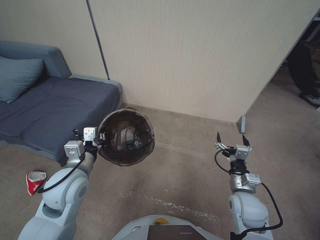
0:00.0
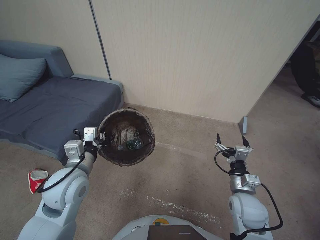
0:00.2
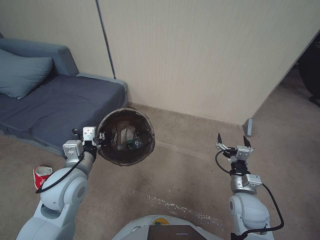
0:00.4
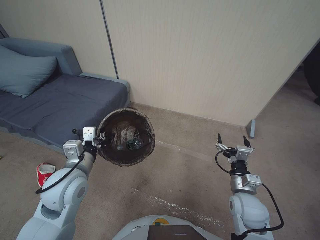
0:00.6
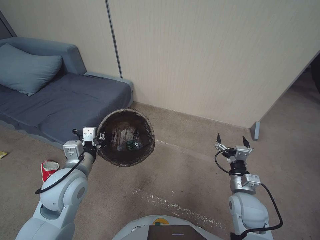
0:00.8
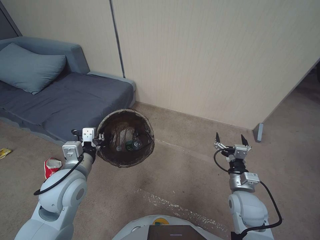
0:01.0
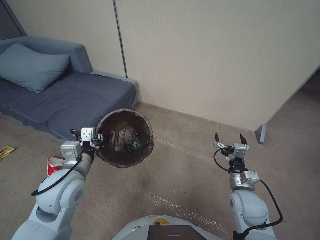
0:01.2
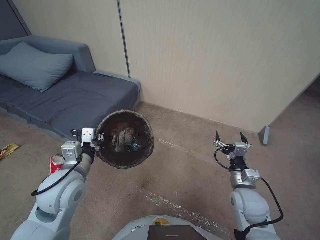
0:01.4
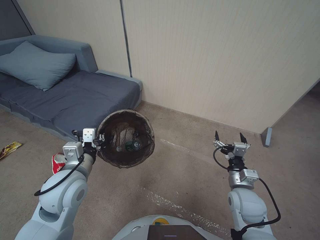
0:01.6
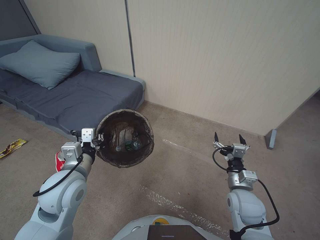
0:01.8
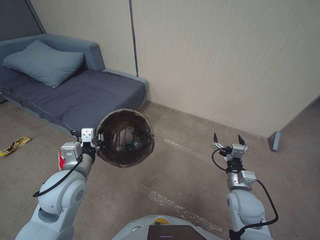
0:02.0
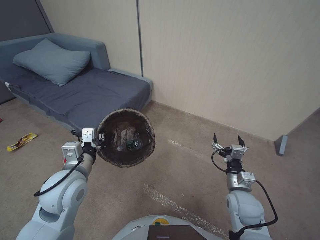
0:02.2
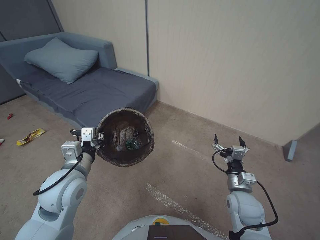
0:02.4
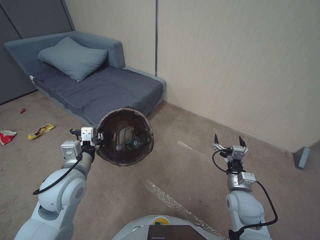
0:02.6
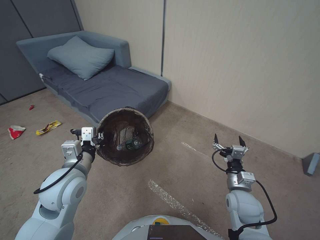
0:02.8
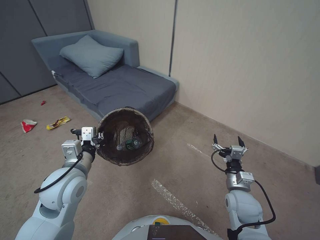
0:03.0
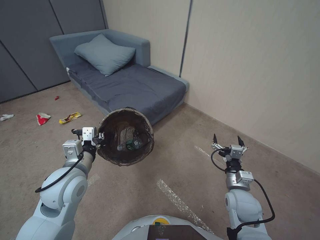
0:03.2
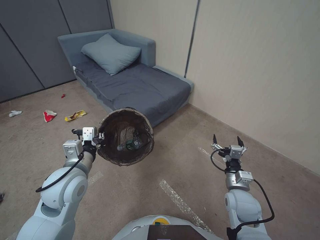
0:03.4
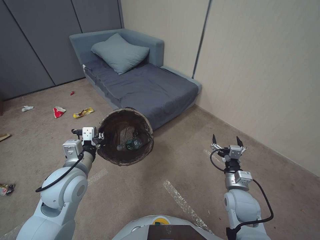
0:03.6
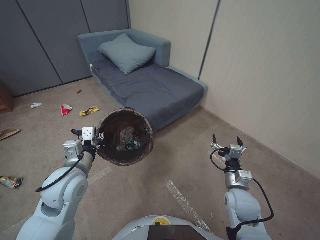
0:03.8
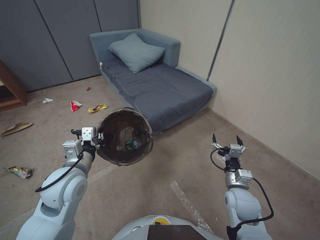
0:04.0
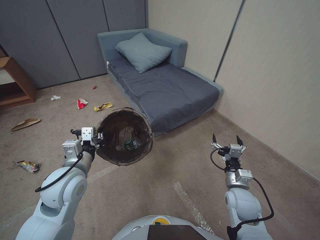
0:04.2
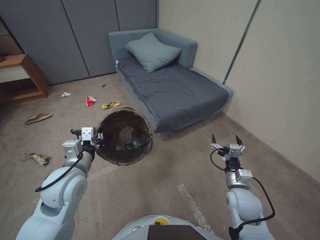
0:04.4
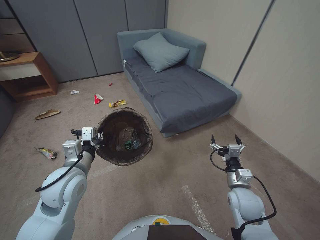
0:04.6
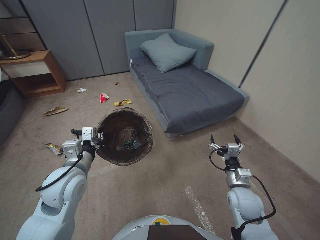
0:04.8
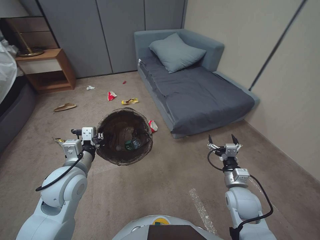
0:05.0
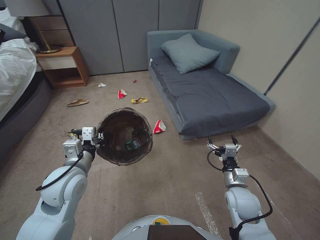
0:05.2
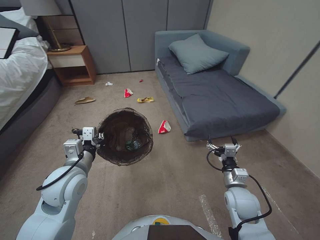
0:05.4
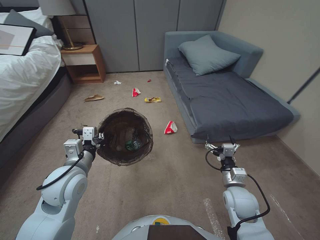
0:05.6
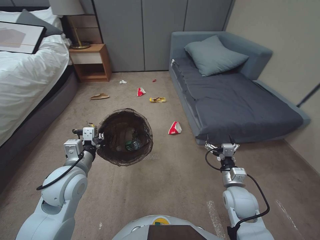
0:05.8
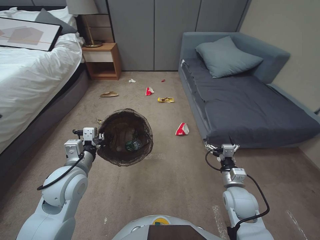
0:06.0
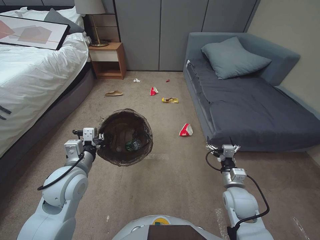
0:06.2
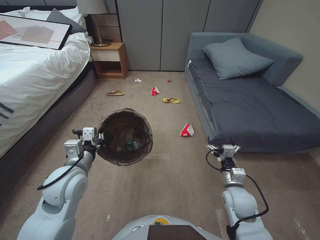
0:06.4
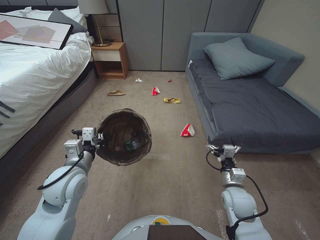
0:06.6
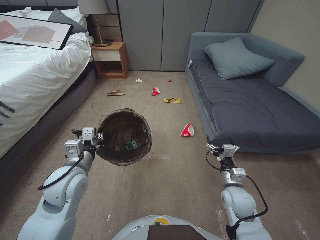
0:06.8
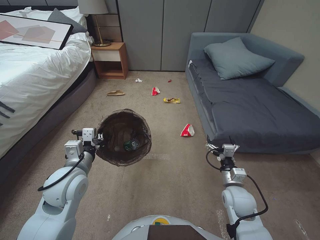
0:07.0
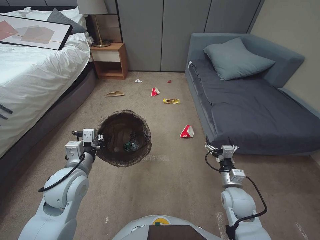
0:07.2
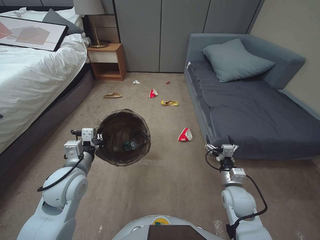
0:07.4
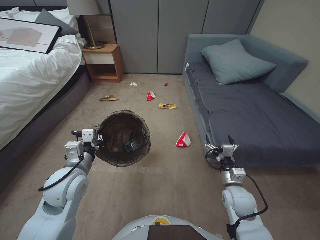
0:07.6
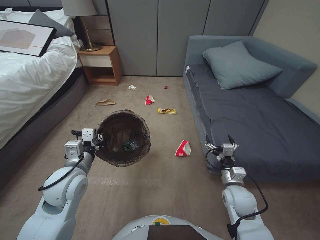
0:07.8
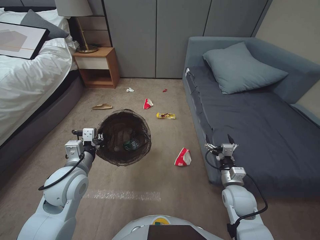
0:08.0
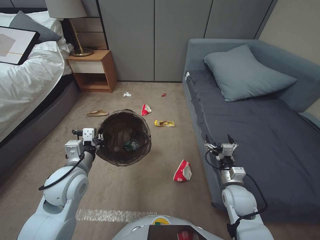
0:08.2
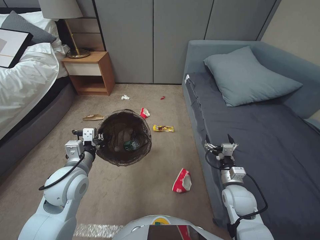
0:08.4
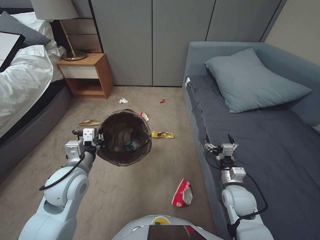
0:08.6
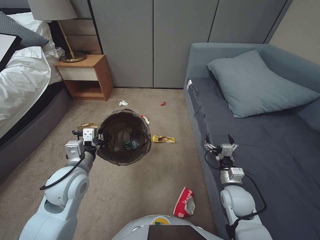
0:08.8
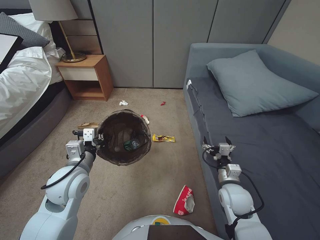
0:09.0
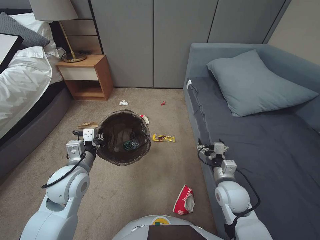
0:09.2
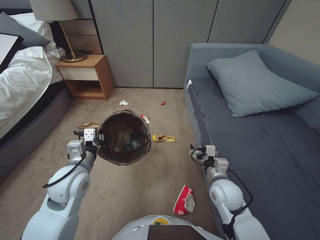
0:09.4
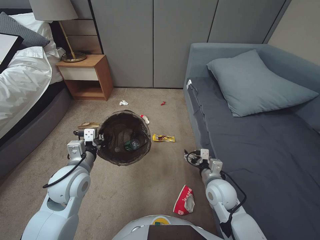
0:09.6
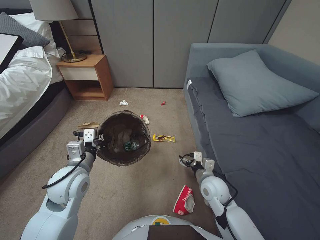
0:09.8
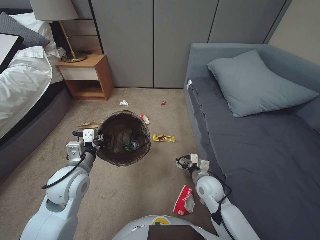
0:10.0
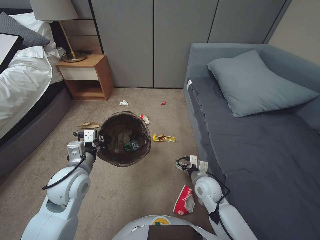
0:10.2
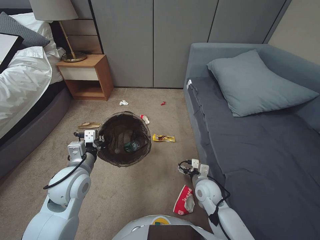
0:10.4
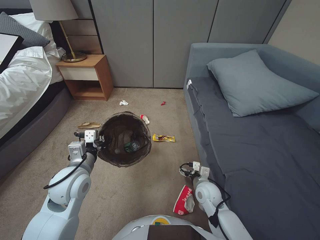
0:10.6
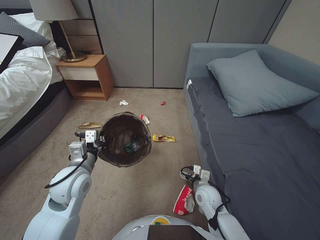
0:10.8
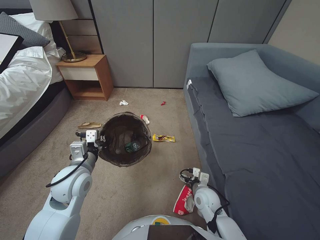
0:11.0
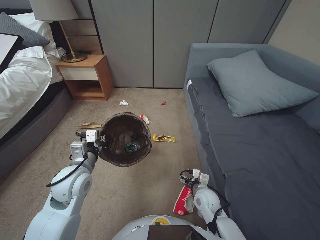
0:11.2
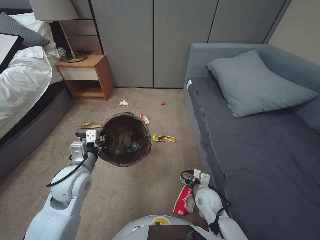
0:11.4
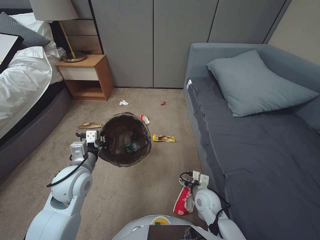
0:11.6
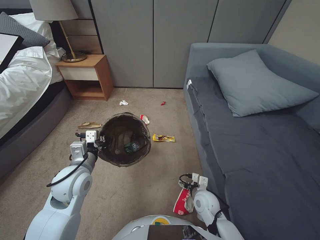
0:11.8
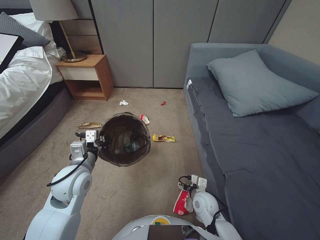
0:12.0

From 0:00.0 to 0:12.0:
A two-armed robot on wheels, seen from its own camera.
Task of the whole recording: Pick up the trash bin, then pick up the garbage from the floor and place it into the trash bin.
From 0:06.0 to 0:07.6: Neither gripper changes place.
From 0:09.0 to 0:10.4: The right gripper goes roughly 10 cm to the left.
From 0:10.4 to 0:12.0: The right gripper ends up some 5 cm from where it was.

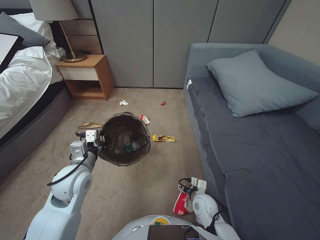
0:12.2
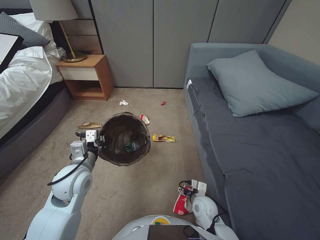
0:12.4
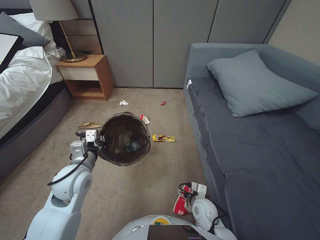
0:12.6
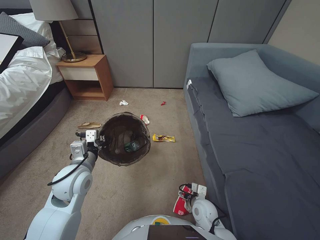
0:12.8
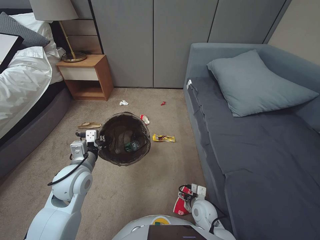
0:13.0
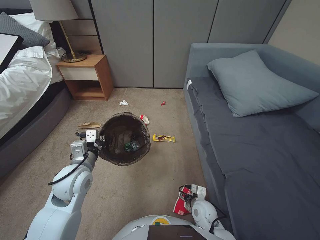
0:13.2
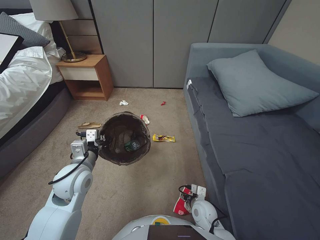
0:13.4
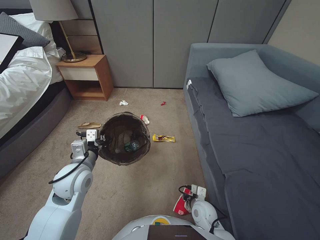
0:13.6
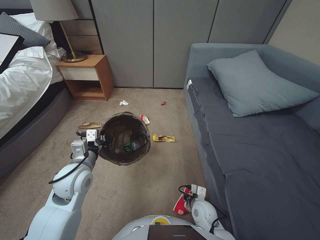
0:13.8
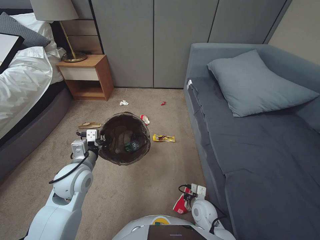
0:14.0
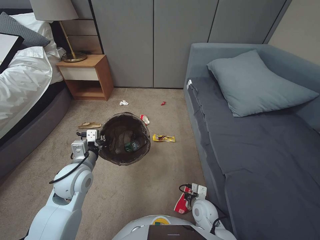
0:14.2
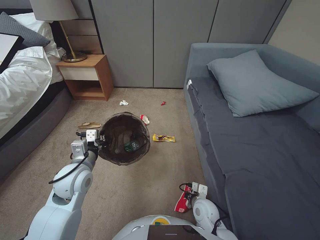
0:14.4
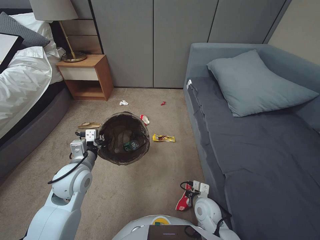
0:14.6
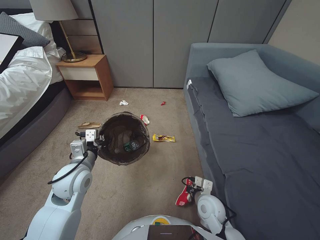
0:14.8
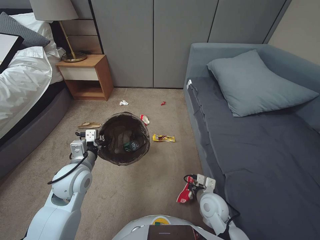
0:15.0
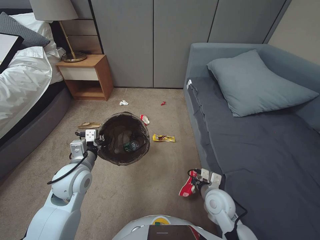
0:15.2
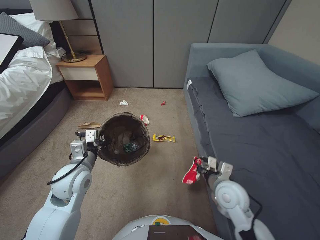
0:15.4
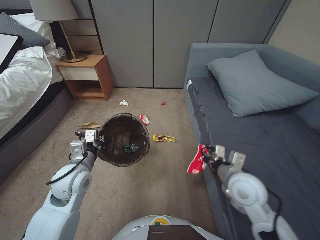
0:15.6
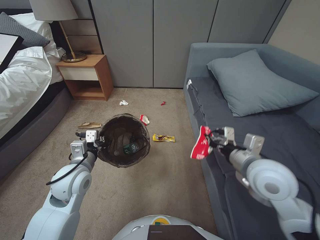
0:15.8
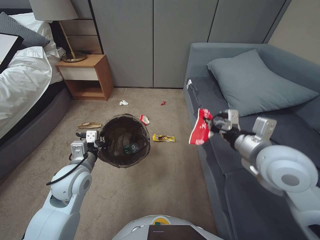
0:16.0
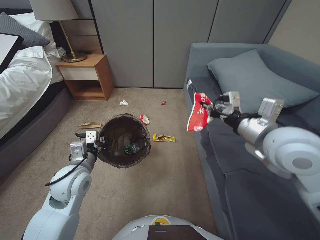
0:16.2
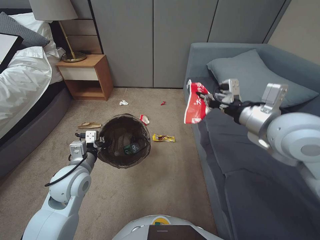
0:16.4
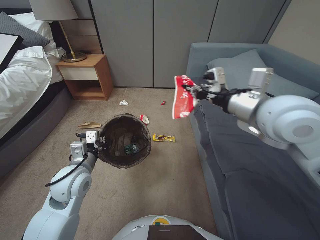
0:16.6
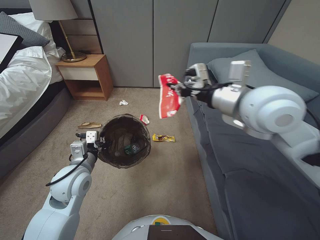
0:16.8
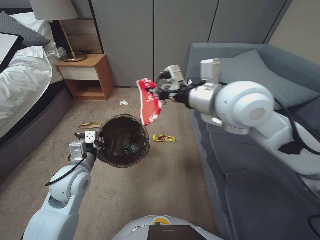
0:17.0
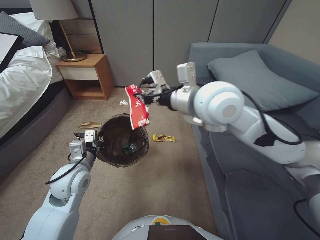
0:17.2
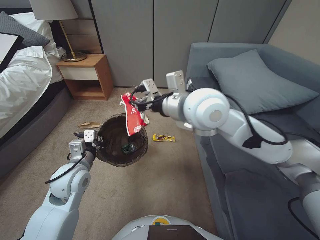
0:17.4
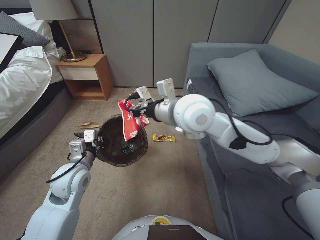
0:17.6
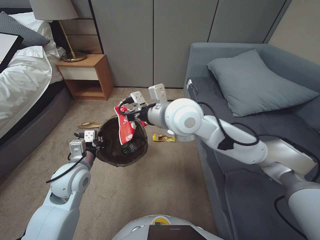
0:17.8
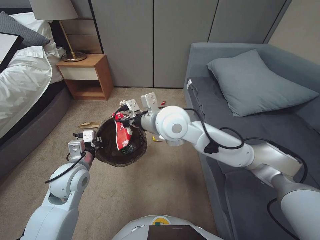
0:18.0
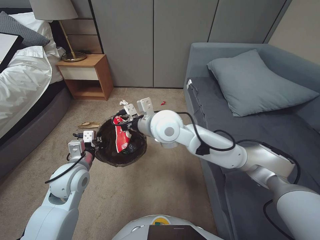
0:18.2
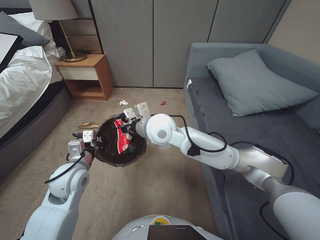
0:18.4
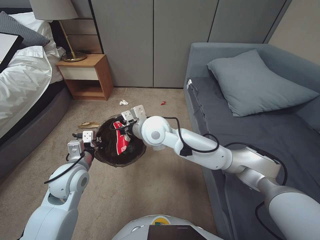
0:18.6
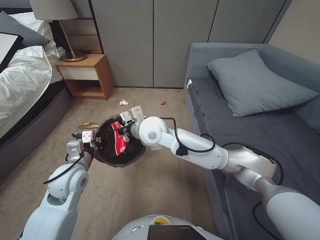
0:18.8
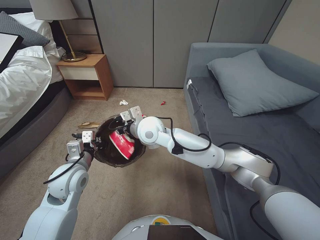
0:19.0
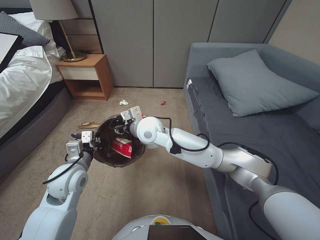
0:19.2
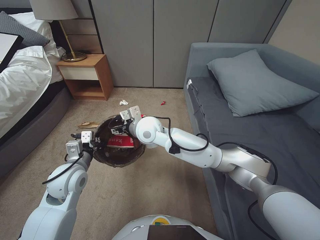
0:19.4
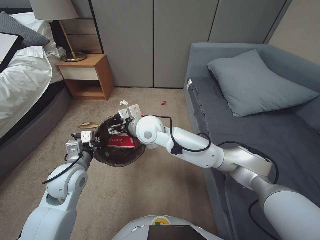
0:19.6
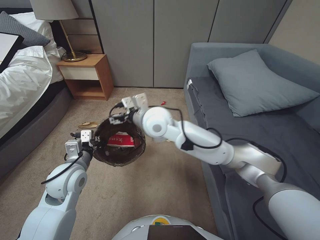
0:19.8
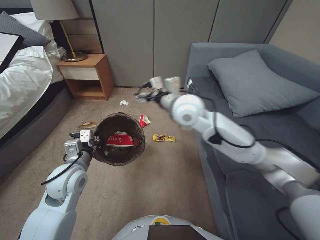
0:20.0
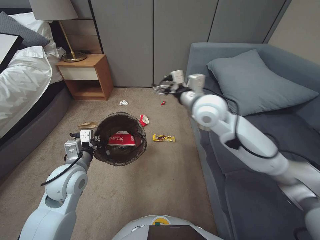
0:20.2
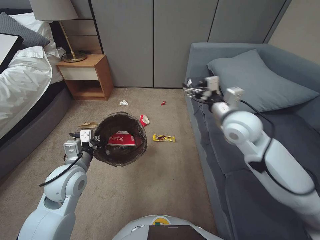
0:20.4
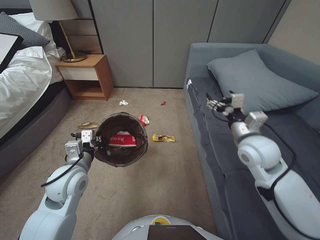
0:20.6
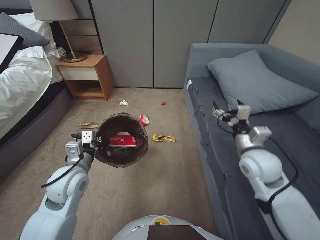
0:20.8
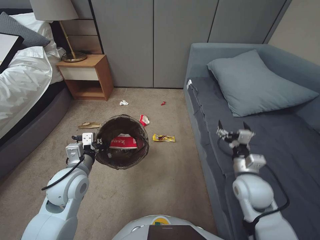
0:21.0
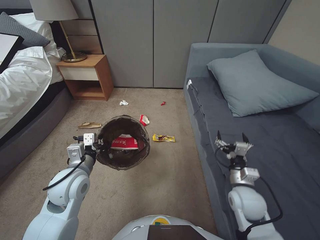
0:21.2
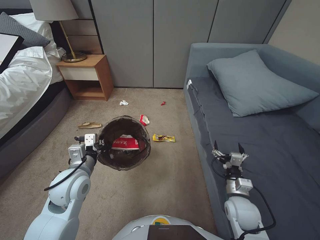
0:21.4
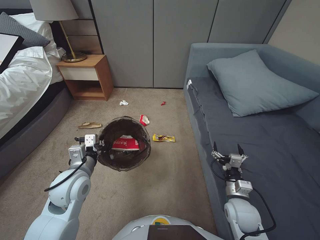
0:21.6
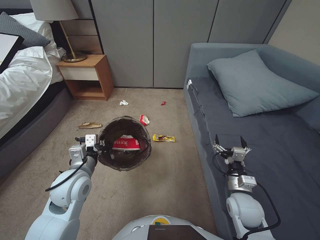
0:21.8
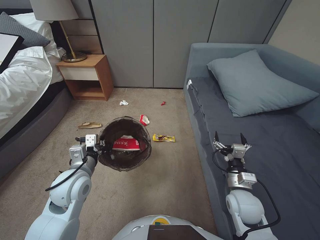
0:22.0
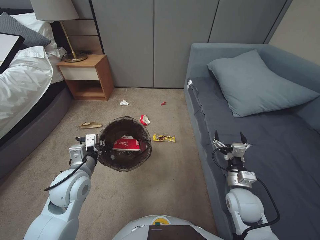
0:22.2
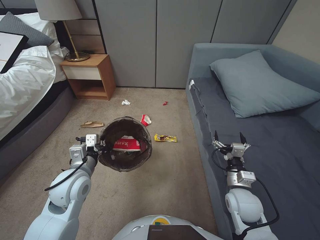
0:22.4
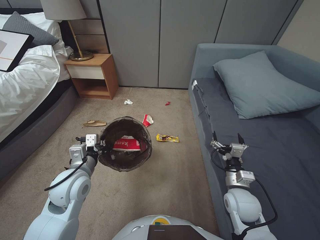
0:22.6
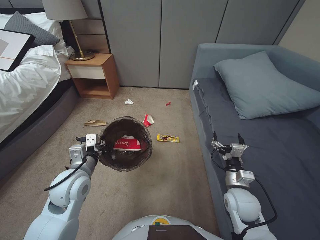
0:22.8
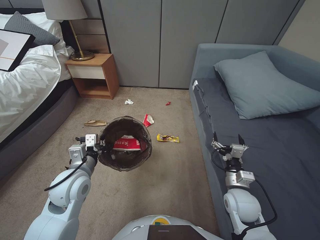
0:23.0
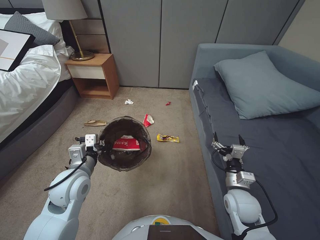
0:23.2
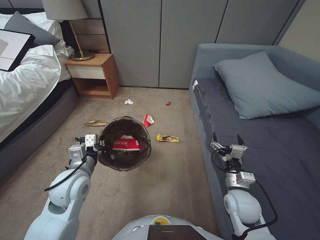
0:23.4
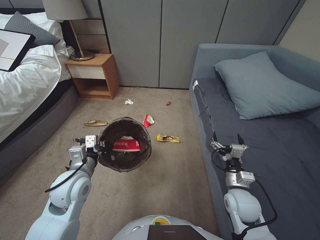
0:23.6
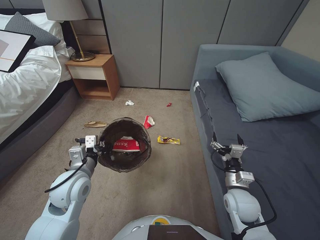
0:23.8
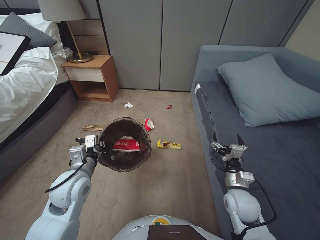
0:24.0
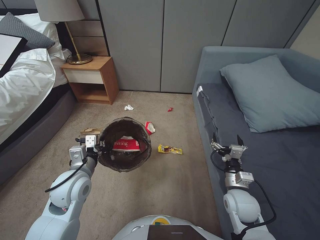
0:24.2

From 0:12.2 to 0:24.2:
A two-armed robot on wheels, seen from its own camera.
Task of the whole recording: Pick up the trash bin, then pick up the garbage from the floor and place it into the trash bin.
From 0:12.2 to 0:13.8: The right gripper closes up.
From 0:13.8 to 0:15.2: The right gripper is displaced upward by about 10 cm, and closes up.
From 0:15.2 to 0:16.6: The right gripper moves upward, about 40 cm.
From 0:16.6 to 0:18.2: The right gripper shifts about 25 cm to the left.
From 0:18.2 to 0:19.8: The right gripper moves about 5 cm, and opens its fingers.
From 0:19.8 to 0:21.2: The right gripper goes roughly 40 cm to the right, downward and backward.
From 0:22.6 to 0:24.2: Neither gripper changes place.
